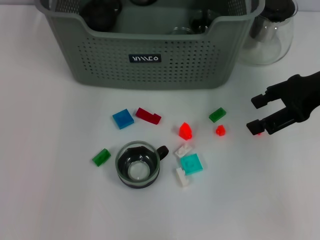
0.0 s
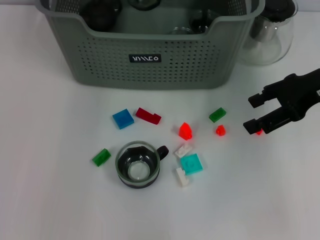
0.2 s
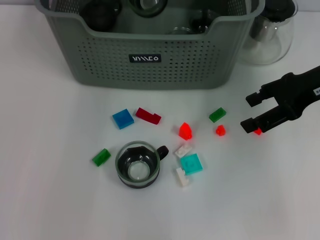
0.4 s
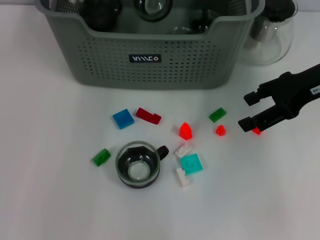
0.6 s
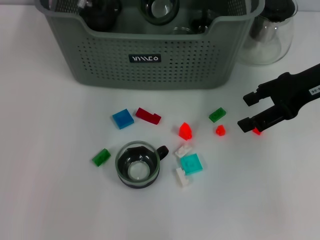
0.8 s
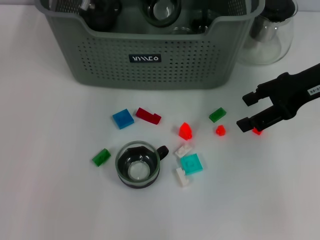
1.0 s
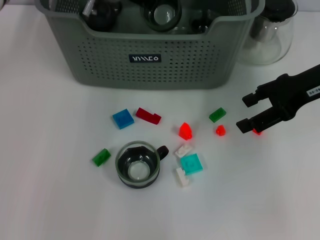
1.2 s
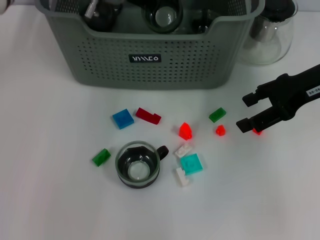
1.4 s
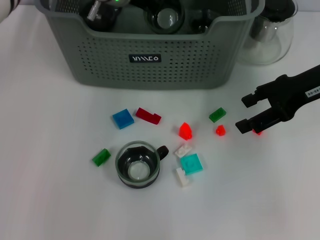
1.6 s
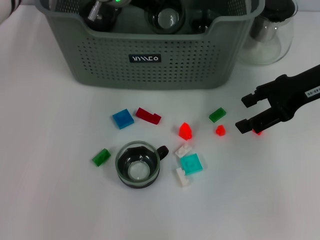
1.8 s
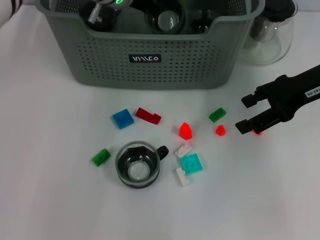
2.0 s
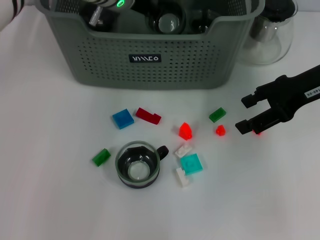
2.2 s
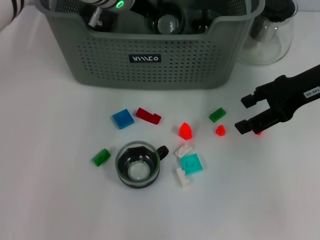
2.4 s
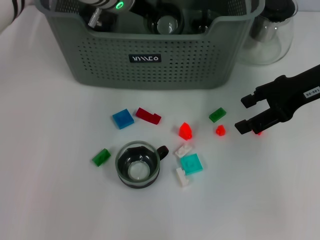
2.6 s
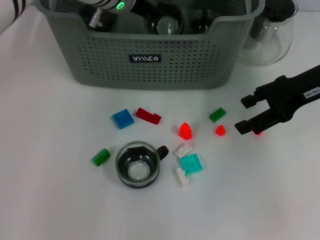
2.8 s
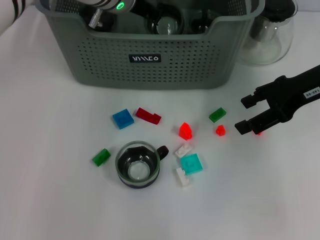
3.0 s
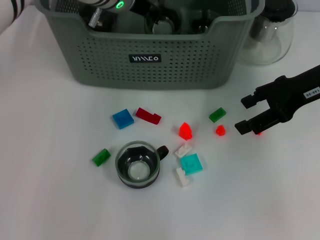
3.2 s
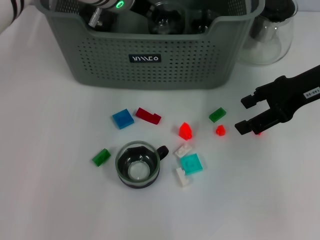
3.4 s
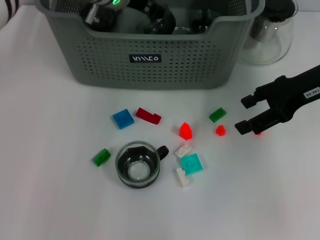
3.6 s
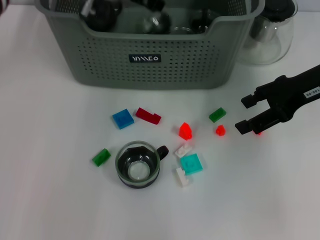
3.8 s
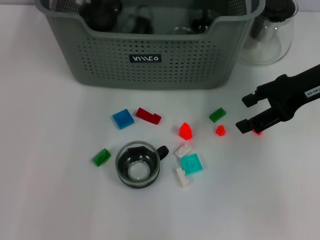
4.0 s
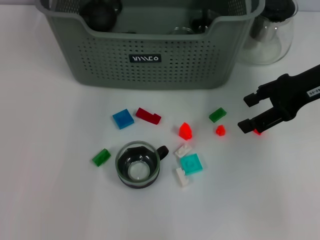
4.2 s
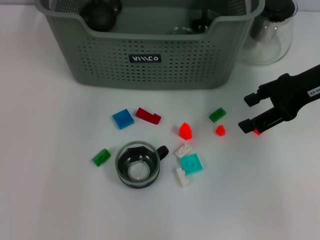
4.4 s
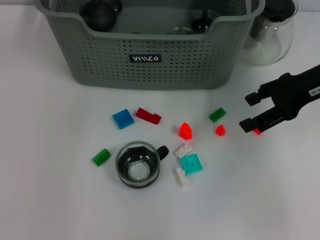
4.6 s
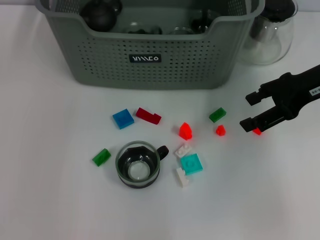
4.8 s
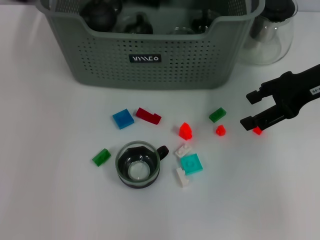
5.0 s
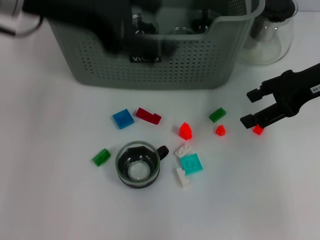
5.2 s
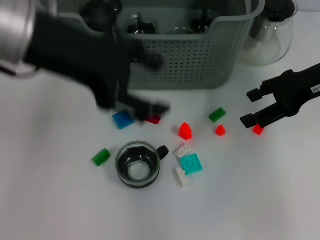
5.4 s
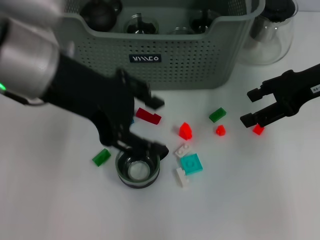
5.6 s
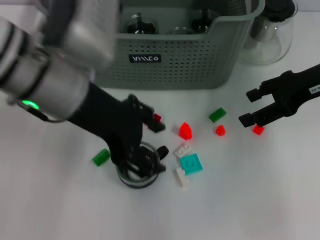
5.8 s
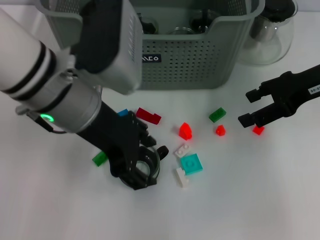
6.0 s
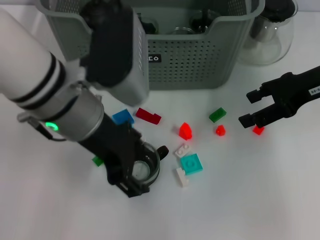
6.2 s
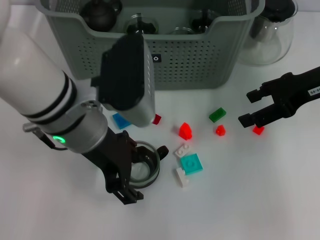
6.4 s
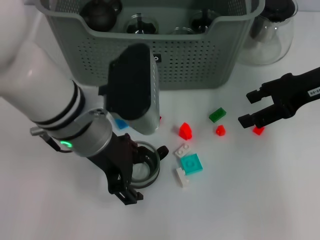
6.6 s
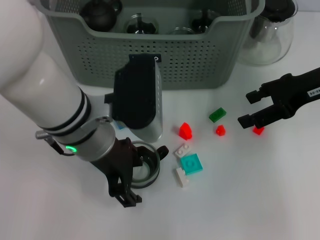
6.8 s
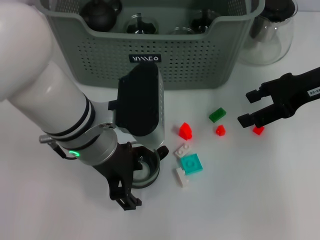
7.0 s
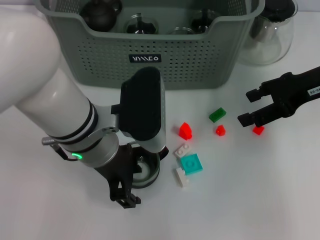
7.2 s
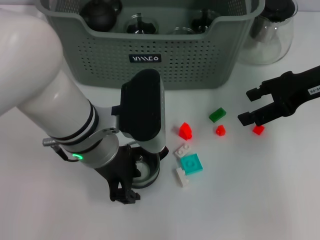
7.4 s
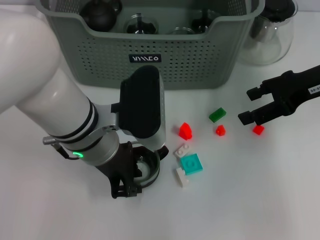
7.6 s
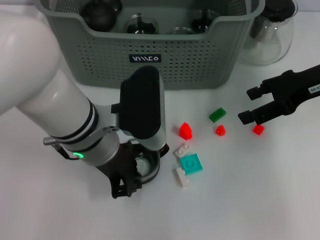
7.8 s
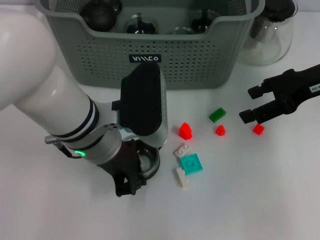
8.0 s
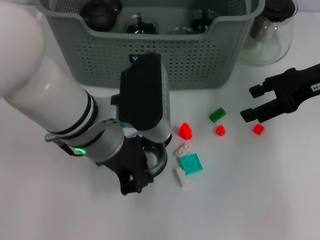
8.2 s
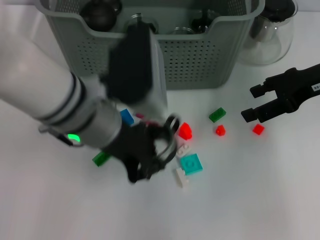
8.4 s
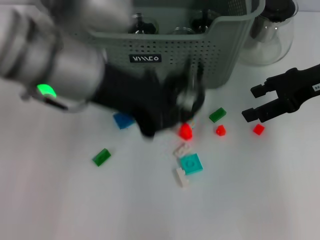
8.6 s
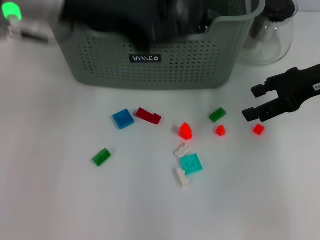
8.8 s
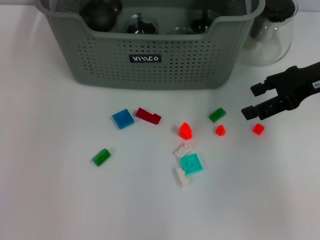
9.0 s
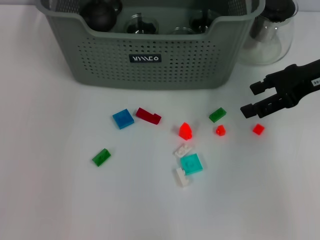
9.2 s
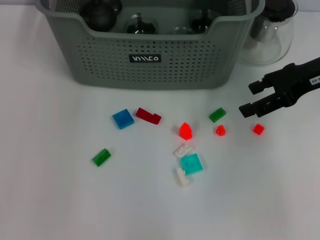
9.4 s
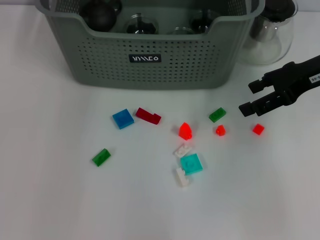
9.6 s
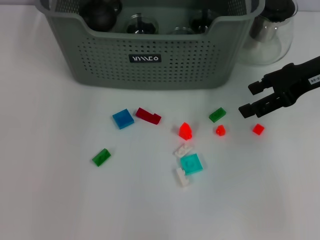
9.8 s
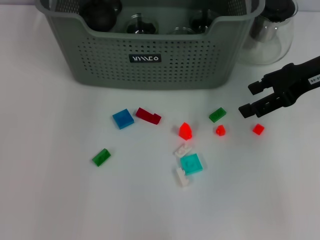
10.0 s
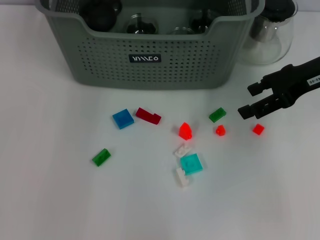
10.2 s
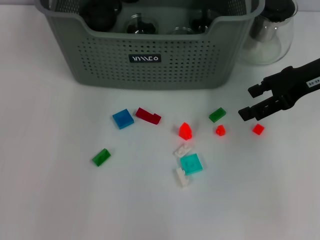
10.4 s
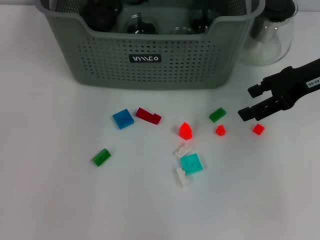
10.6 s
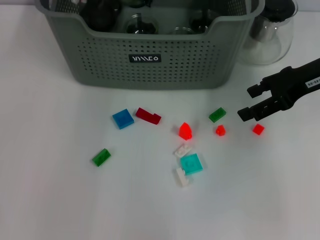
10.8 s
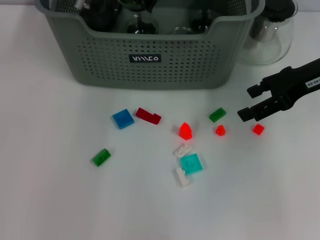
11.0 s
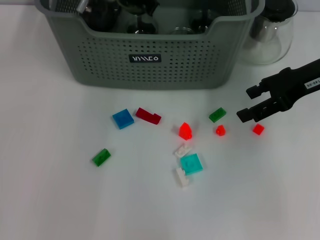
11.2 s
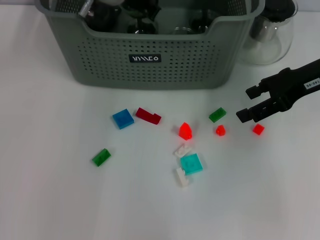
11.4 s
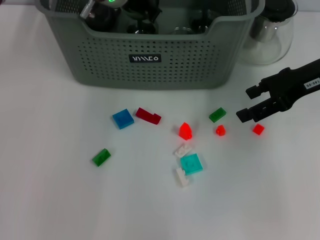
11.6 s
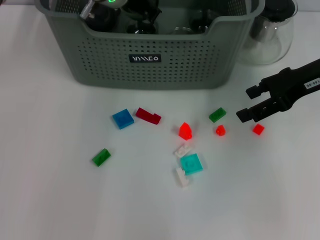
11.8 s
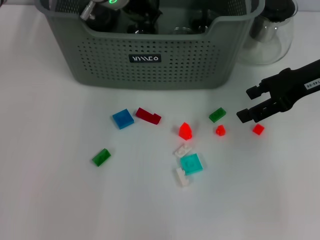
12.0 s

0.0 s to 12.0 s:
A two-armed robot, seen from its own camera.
Task of the whole recording: pick up the teacup on the table and place it into the storage bin, pick up the block on the table and place it into the storage bin.
Step, 0.0 to 3.4 s: Place the cup in the storage box with left gripper.
Step, 3.8 to 7.8 s: Grasp the cup with left gripper.
0.0 to 1.6 s: The left gripper travels downward and to the right by some 10 cm.
1.6 to 3.0 s: The two grippers keep their place.
3.0 to 4.4 s: The left gripper shifts roughly 10 cm upward, and opens.
4.4 to 6.0 s: The left gripper is displaced backward and downward by roughly 15 cm.
6.0 to 7.6 s: The left gripper travels downward by roughly 5 cm.
7.6 to 9.0 s: The left gripper moves upward and forward, some 20 cm, and closes its fingers.
10.4 to 12.0 s: The grippers move only a little.

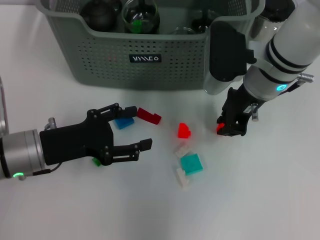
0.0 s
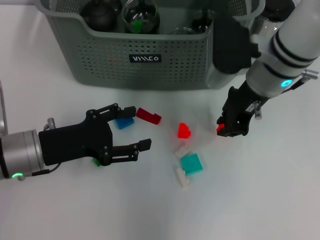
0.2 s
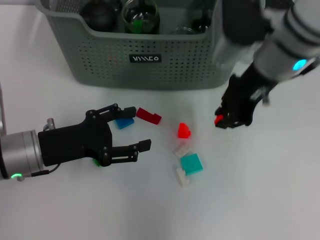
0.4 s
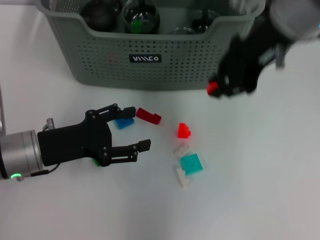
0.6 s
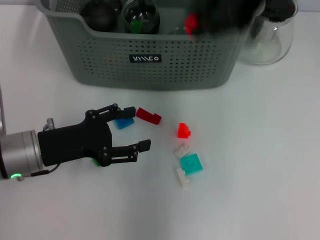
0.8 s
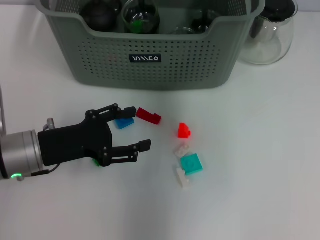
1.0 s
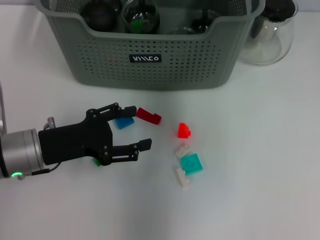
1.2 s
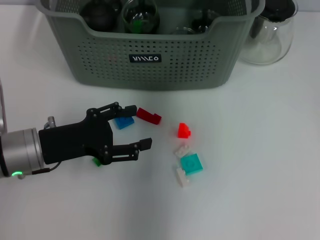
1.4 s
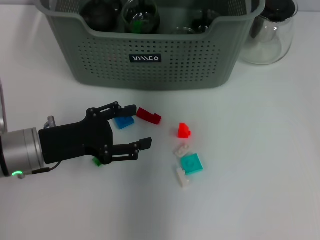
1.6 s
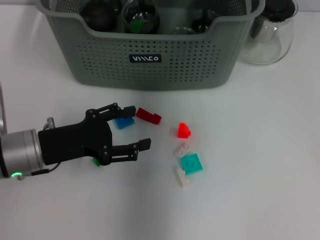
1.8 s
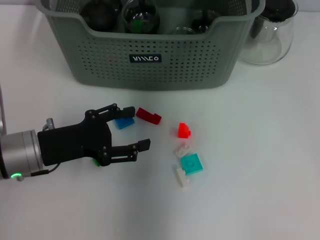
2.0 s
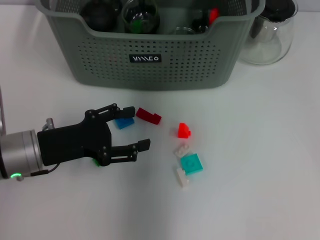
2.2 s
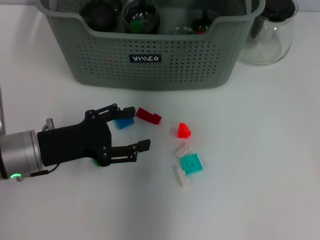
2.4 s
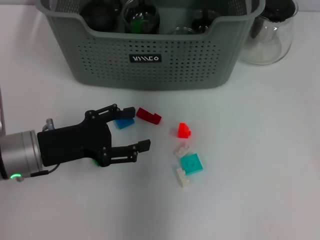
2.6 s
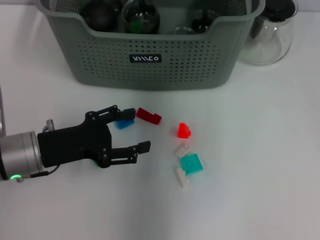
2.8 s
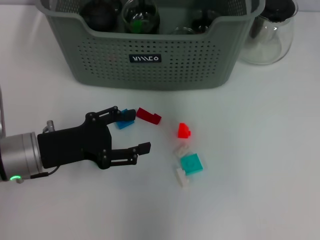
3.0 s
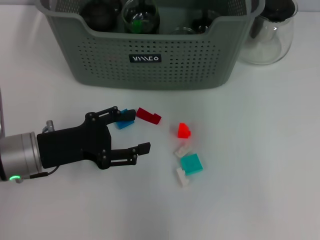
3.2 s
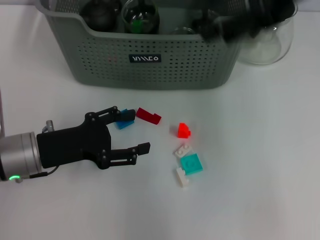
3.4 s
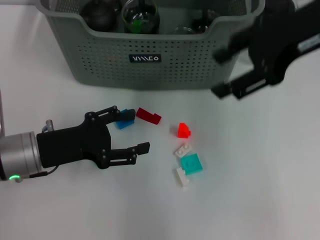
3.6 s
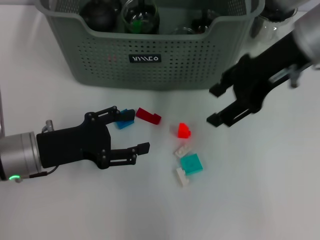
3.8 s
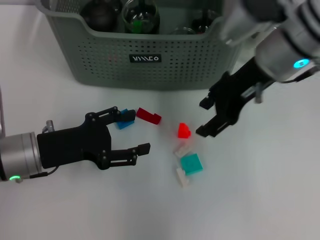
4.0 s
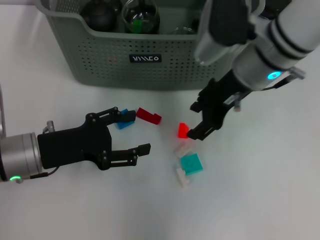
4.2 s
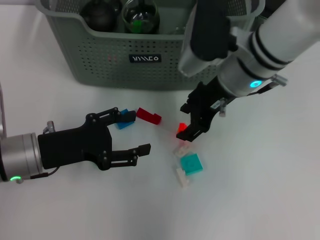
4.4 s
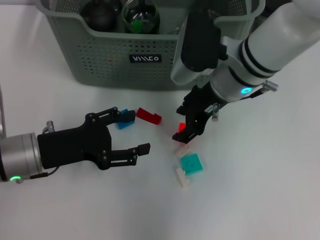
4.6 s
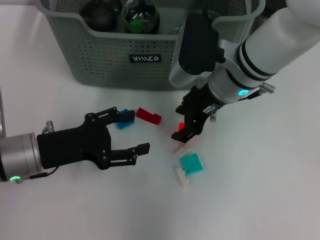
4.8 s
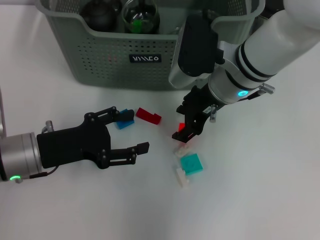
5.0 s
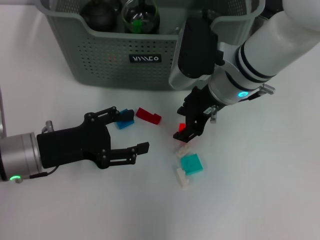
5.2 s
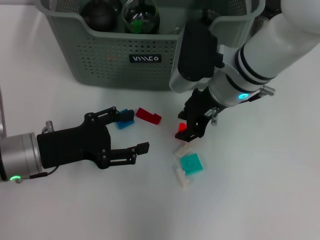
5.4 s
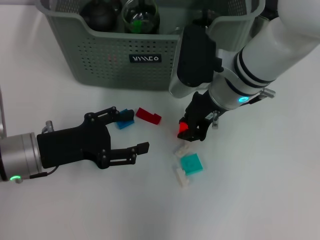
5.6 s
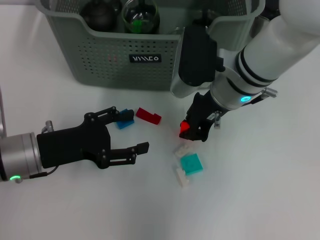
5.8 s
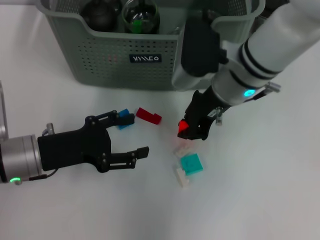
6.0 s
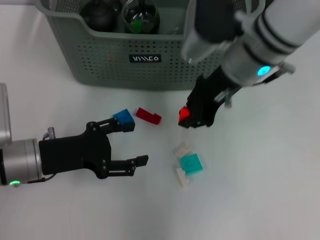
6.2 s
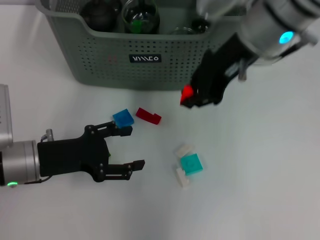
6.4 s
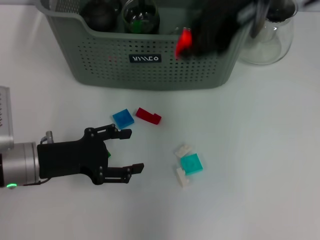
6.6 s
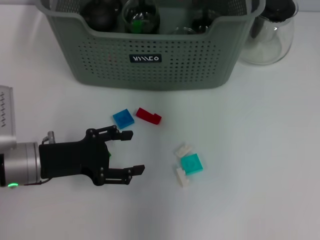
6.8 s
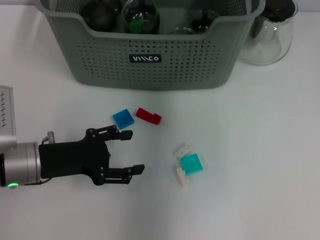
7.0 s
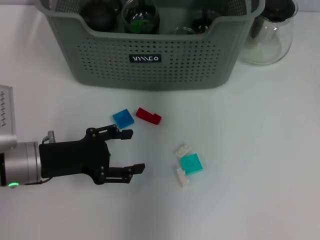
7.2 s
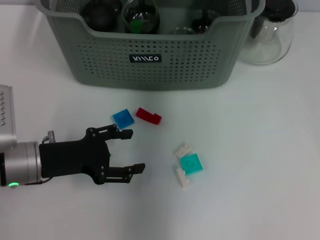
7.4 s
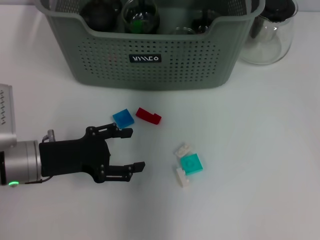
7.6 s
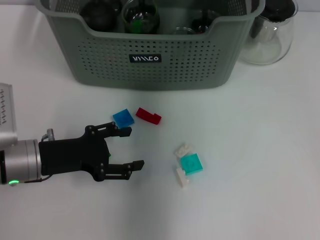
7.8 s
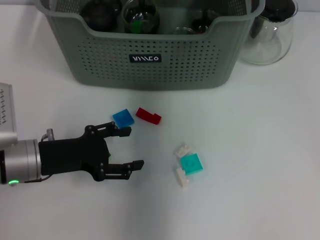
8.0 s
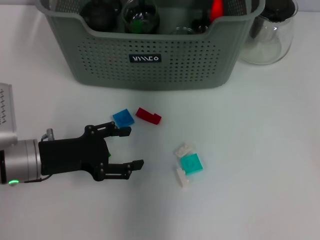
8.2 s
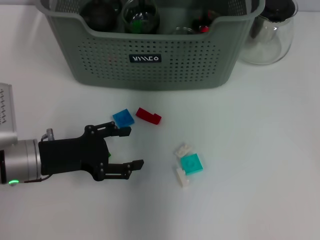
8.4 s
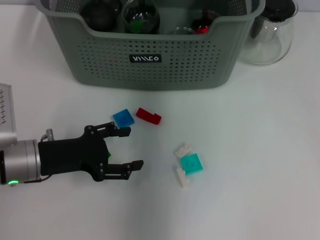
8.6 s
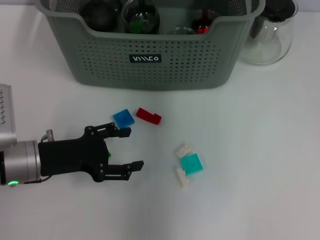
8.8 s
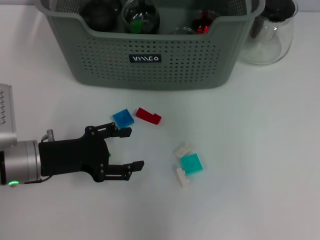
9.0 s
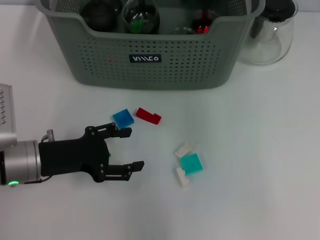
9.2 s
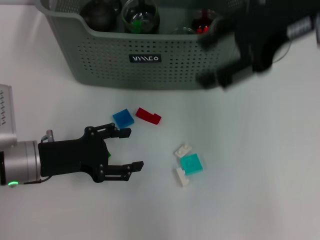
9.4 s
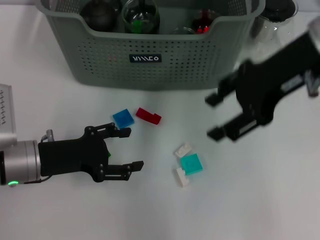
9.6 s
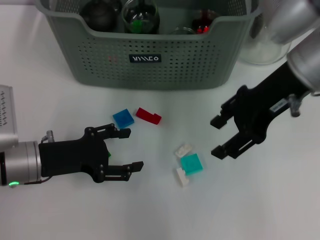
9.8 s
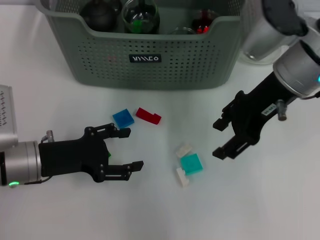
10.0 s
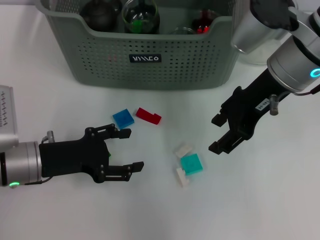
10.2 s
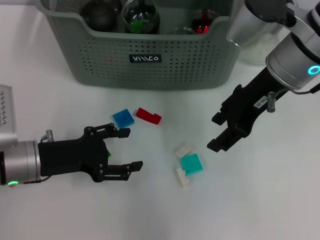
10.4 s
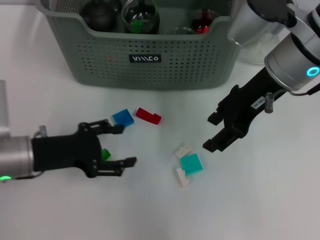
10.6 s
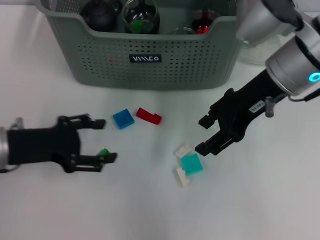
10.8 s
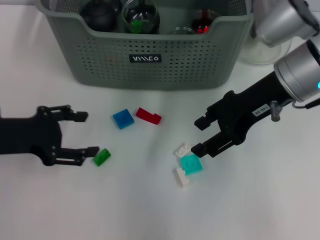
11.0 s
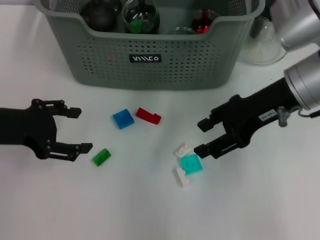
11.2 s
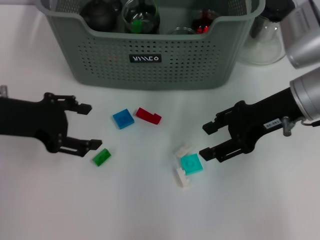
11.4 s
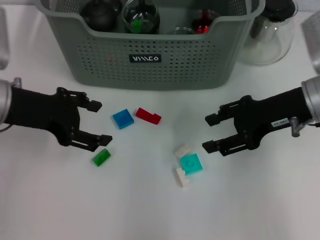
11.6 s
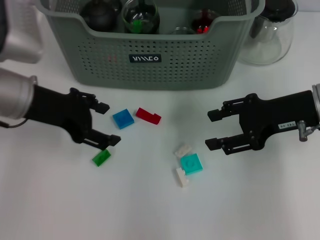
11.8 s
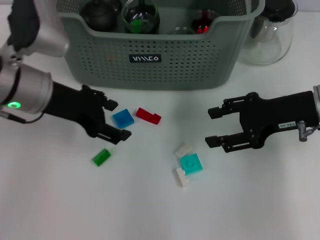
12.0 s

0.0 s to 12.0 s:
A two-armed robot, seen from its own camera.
Task of the whole recording: pick up the teacup on the table and place it into the storage bin, pick up the block on the table and place it into the storage bin.
Step, 0.2 to 2.4 s: Place the orange block in the storage box with right gripper.
Step, 2.6 to 5.6 s: Grasp the orange block with right gripper.
Step, 5.8 to 8.2 s: Place the orange block in the storage box with right gripper.
0.0 to 1.6 s: The right gripper shifts some 15 cm upward and forward.
1.6 to 3.0 s: The right gripper moves upward and backward, roughly 10 cm, and opens.
3.0 to 4.4 s: The right gripper moves downward, some 20 cm.
4.4 to 6.0 s: The right gripper closes its fingers.
6.0 to 7.6 s: The right gripper goes approximately 15 cm upward and forward.
7.6 to 9.0 s: The right gripper heads upward and backward, covering roughly 10 cm, and opens up.
9.0 to 10.4 s: The right gripper heads downward, covering approximately 15 cm.
10.4 to 12.0 s: The left gripper goes some 15 cm upward and forward; the right gripper moves to the right and downward, some 10 cm.
